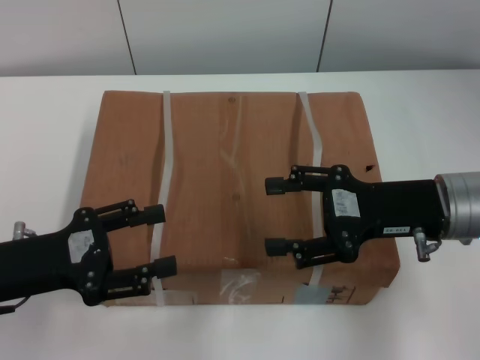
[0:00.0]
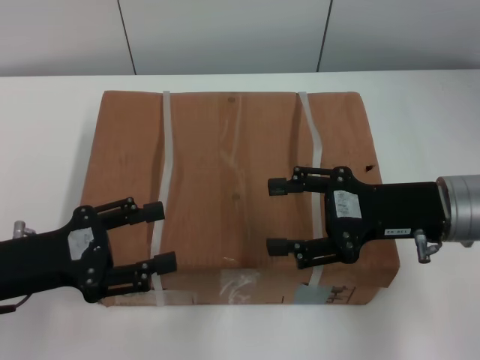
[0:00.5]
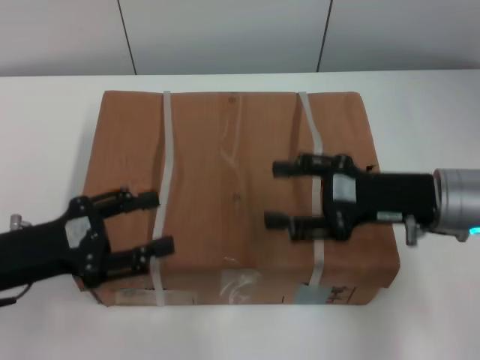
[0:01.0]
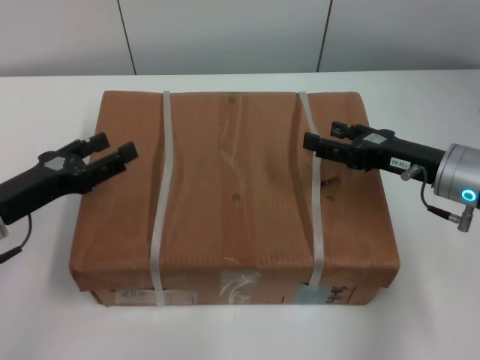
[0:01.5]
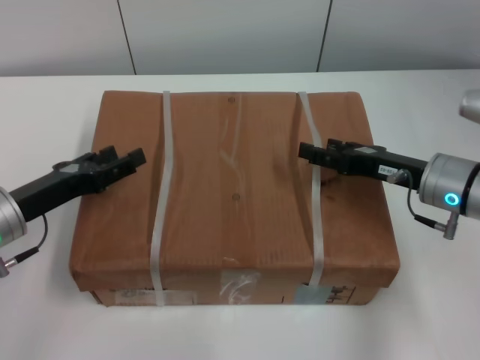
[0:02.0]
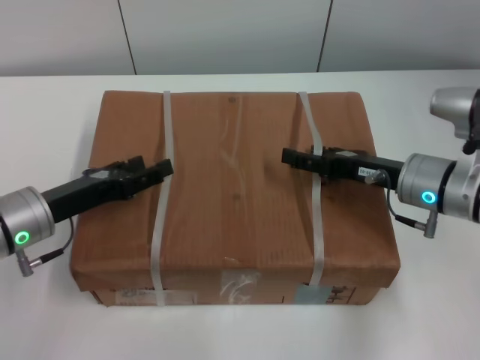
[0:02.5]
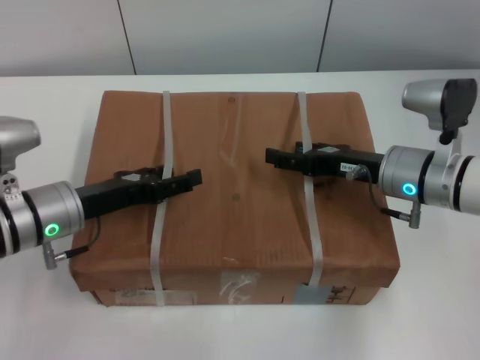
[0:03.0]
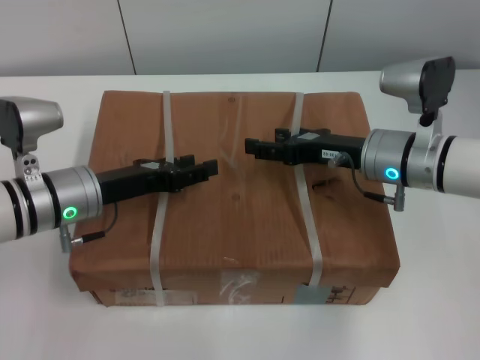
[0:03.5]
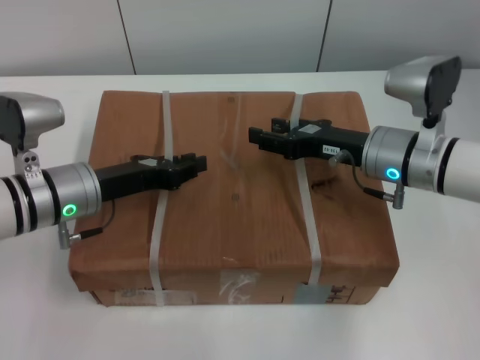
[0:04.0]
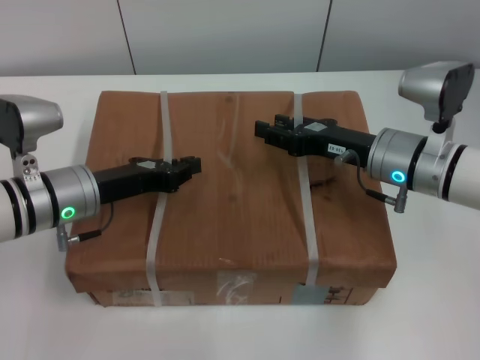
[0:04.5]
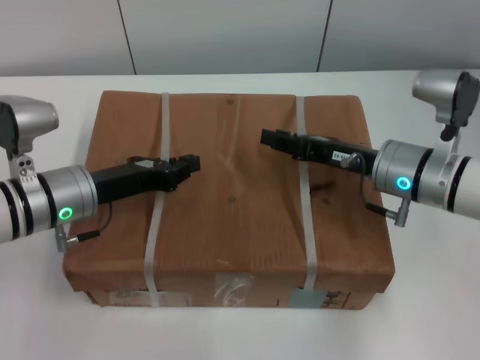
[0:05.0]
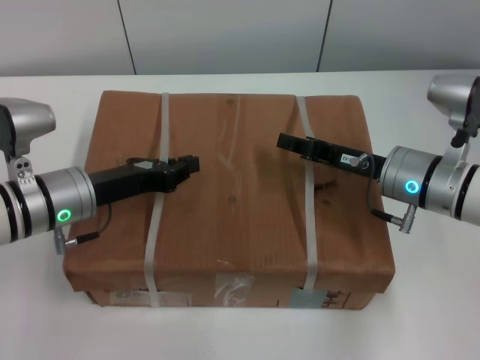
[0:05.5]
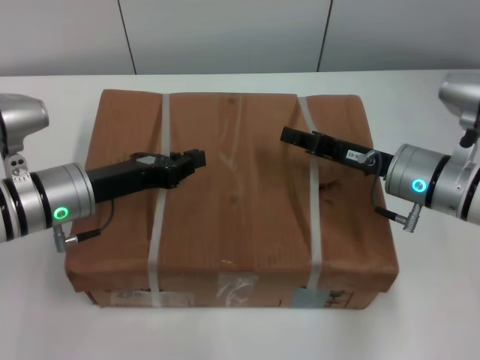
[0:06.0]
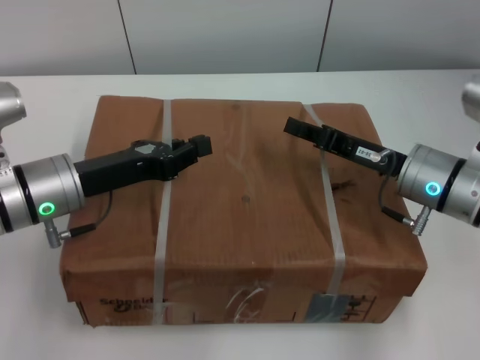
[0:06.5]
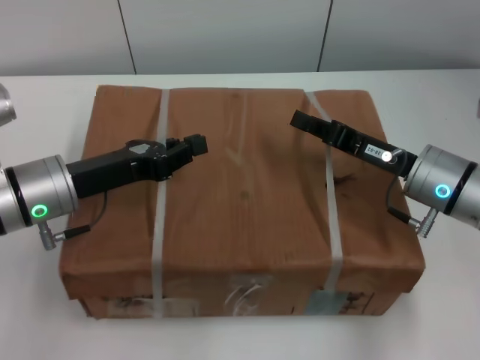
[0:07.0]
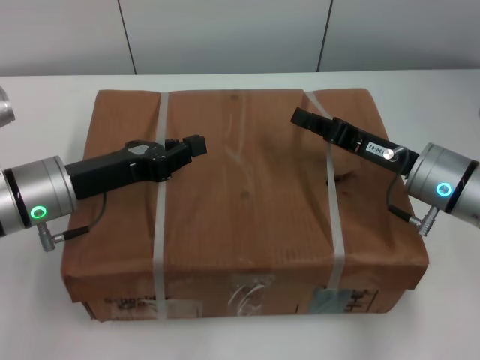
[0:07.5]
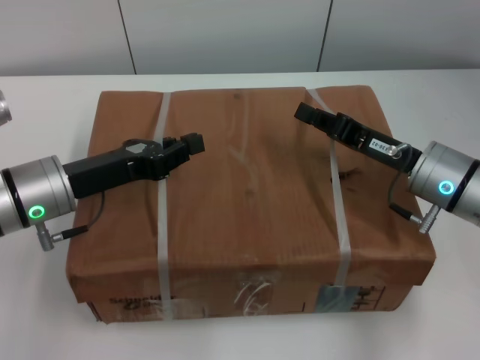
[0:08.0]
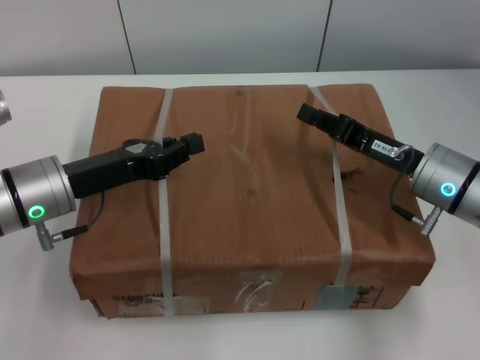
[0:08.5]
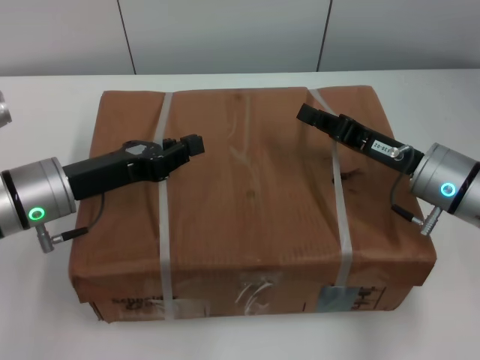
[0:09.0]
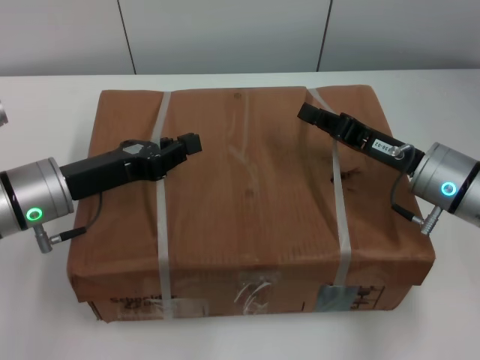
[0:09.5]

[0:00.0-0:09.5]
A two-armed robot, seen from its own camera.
Task of the whole recording: pick up the box from the table with both arms.
Step, 0:00.0 to 0:05.5: Grasp the bandage with left gripper.
Step, 0:00.0 to 0:05.5: Grasp the bandage with right gripper.
Step, 0:06.0 to 0:06.5: Lift the box with left gripper.
Step, 0:06.0 to 0:06.5: Lift the box with right gripper.
0:00.0 to 0:02.0: The left gripper shifts approximately 5 cm forward. Meanwhile the right gripper travels downward by approximately 5 cm.
0:02.0 to 0:04.0: The left gripper shifts roughly 5 cm to the right, and closes. The right gripper heads to the left, covering some 5 cm.
0:04.0 to 0:05.5: The left gripper closes. The right gripper closes its fingers.
0:07.5 to 0:09.5: Neither gripper changes place.

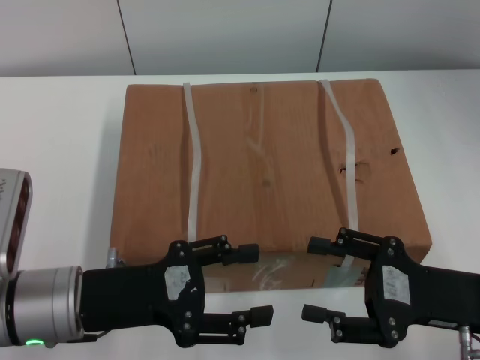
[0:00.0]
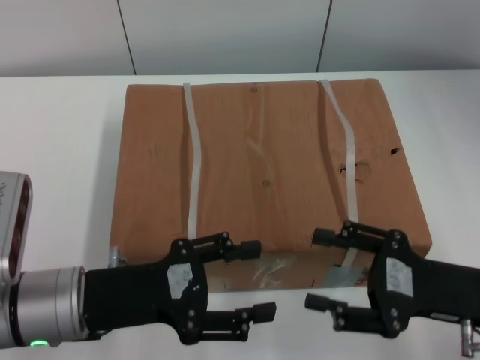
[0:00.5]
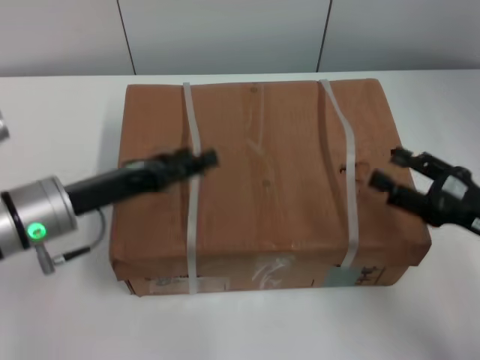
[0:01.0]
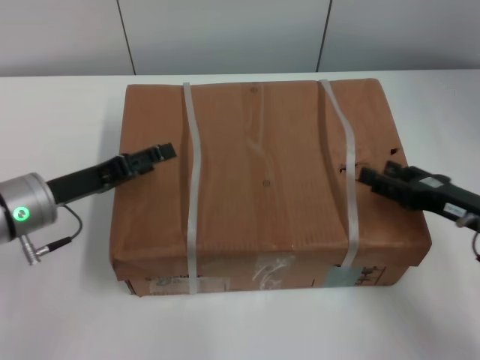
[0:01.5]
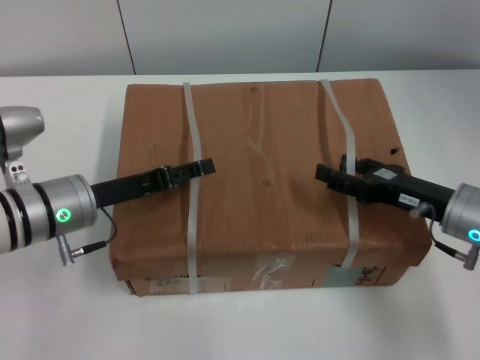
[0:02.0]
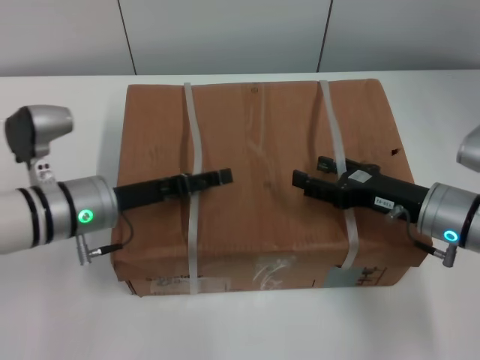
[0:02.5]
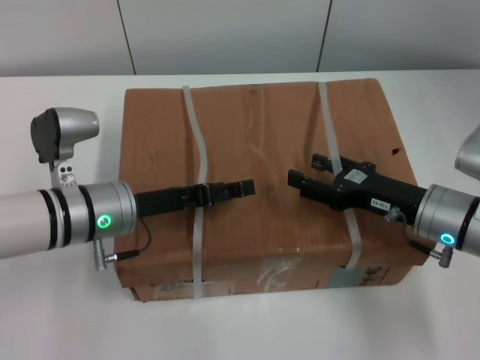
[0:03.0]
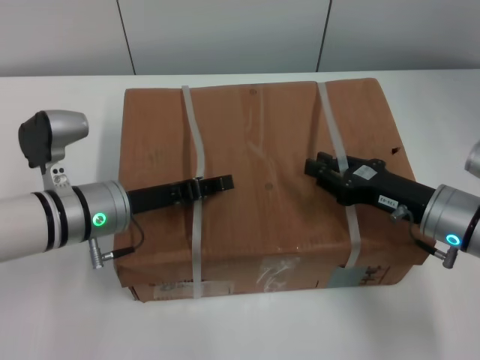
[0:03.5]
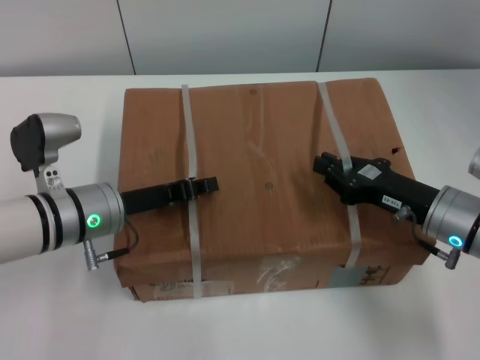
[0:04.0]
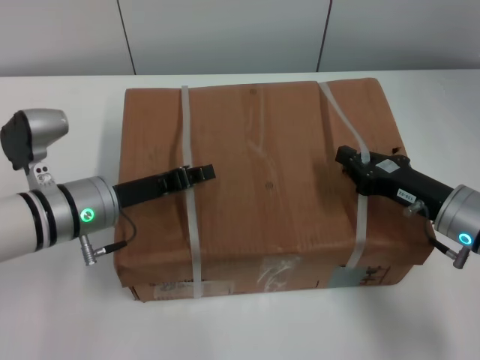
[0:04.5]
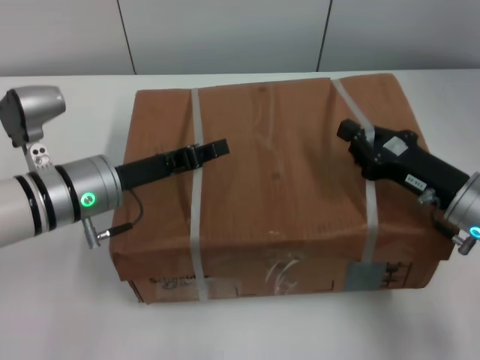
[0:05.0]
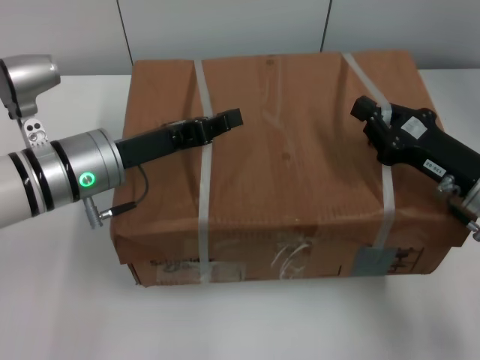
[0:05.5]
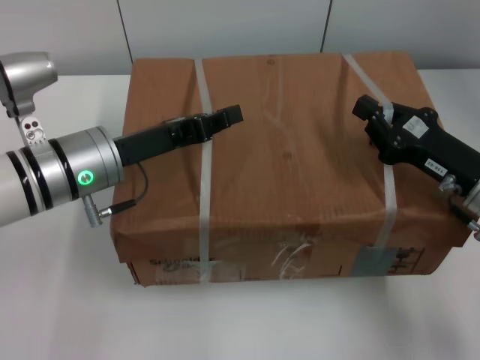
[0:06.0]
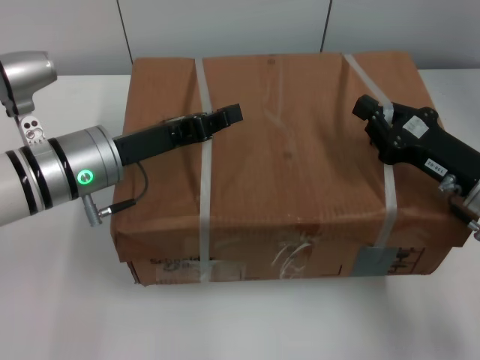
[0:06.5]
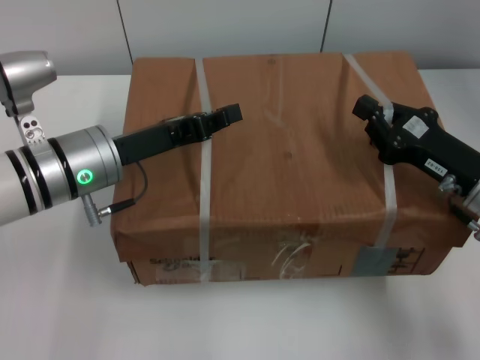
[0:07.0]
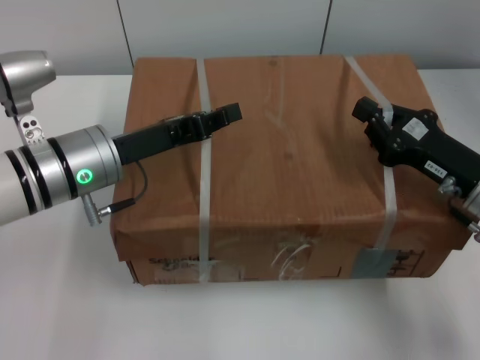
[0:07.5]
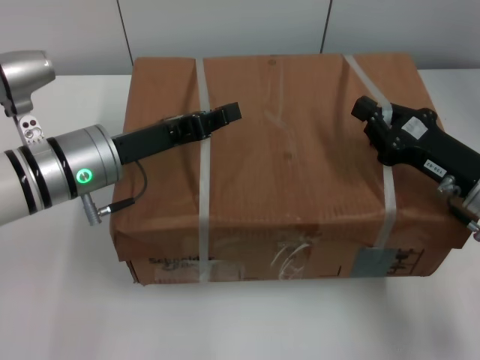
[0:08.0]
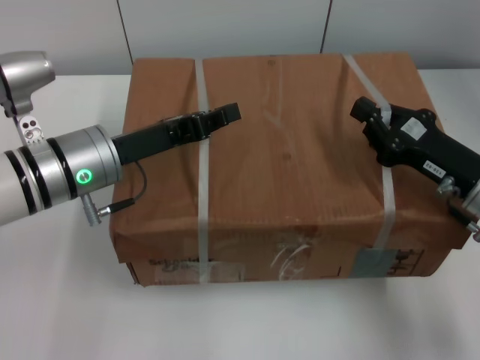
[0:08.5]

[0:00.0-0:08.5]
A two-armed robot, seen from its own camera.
Task of the whole recording: pick up the box from the table with both arms.
Step, 0:00.0 to 0:04.5: Grasp the bandage with left gripper.
Step, 0:00.0 to 0:04.5: Grasp the bandage with right gripper.
Step, 0:05.0 to 0:05.5: Lift the box with left gripper.
Step, 0:05.0 to 0:05.5: Lift the box with right gripper.
0:00.0 to 0:02.0: Both grippers travel together forward, about 10 cm.
0:02.0 to 0:04.0: The right gripper closes; the left gripper closes.
0:04.0 to 0:06.5: The left gripper travels upward by roughly 5 cm.
0:06.5 to 0:08.5: Neither gripper changes place.
